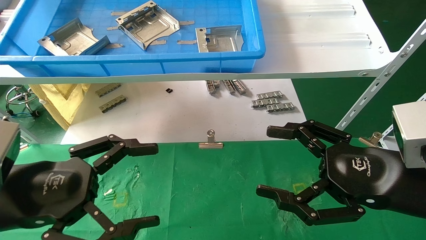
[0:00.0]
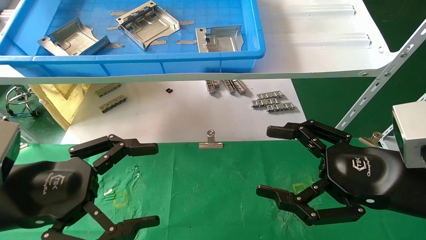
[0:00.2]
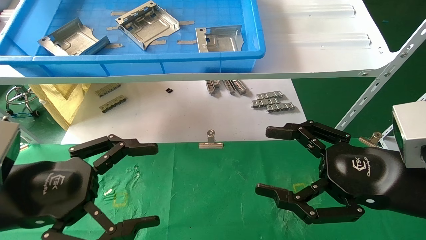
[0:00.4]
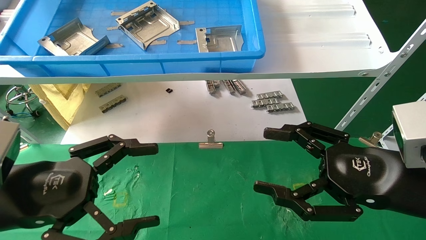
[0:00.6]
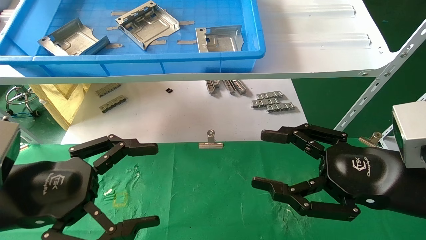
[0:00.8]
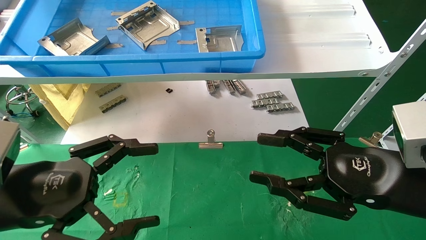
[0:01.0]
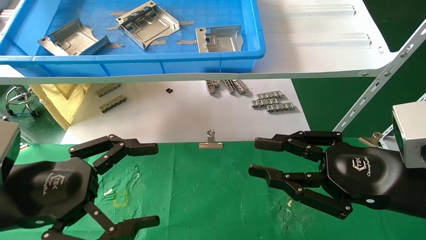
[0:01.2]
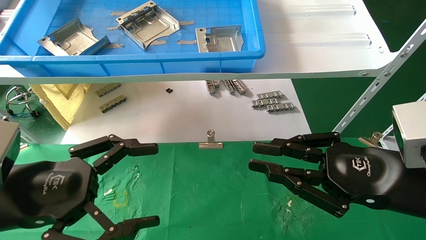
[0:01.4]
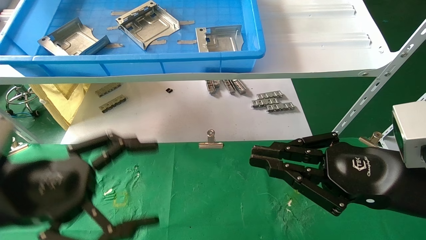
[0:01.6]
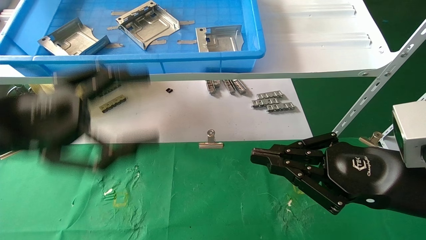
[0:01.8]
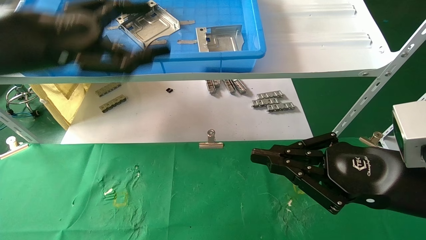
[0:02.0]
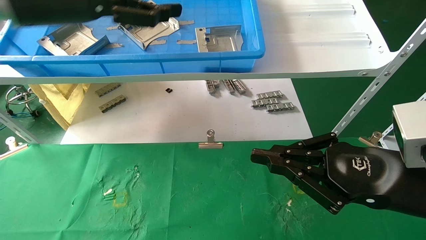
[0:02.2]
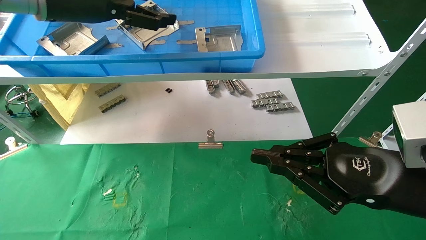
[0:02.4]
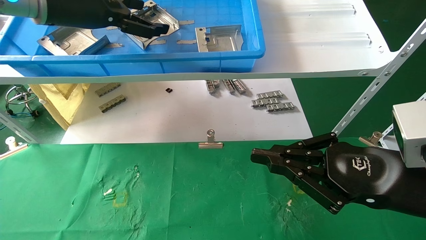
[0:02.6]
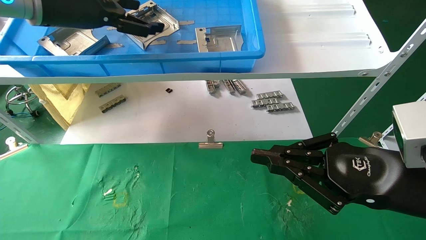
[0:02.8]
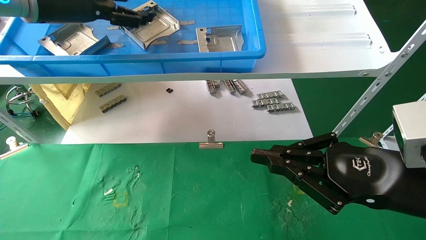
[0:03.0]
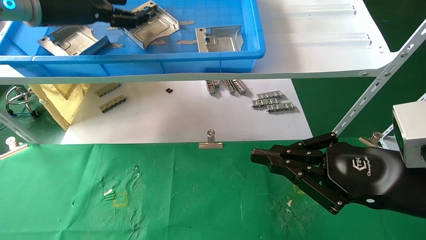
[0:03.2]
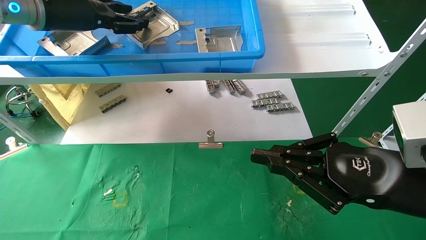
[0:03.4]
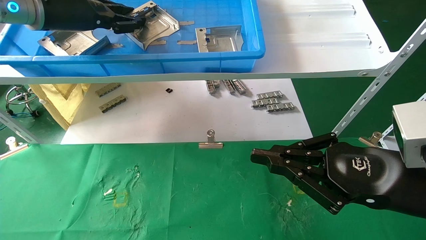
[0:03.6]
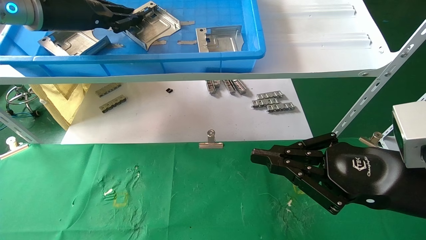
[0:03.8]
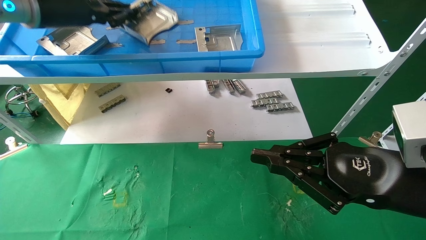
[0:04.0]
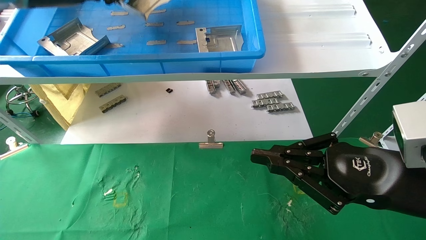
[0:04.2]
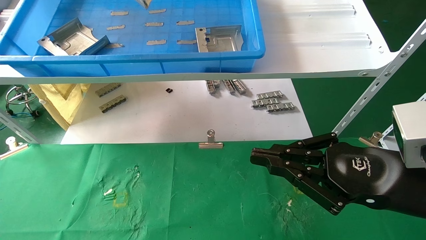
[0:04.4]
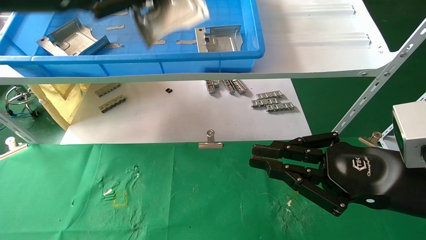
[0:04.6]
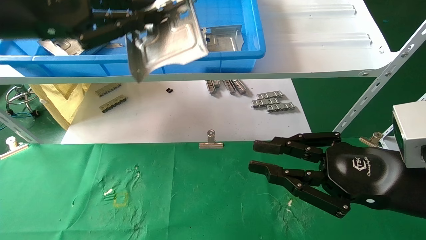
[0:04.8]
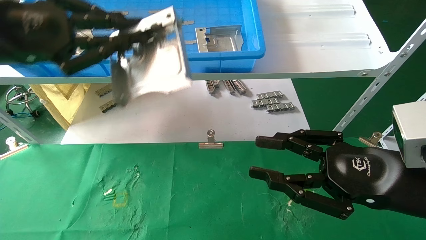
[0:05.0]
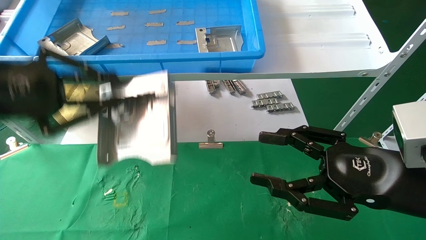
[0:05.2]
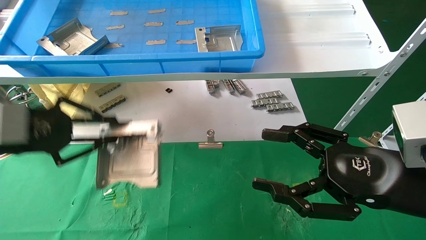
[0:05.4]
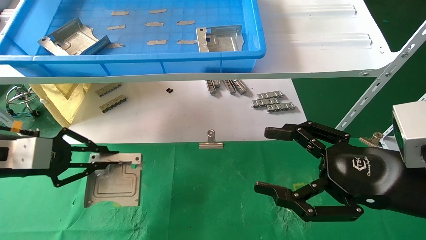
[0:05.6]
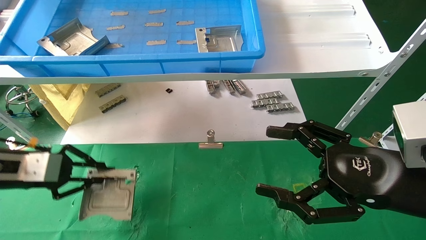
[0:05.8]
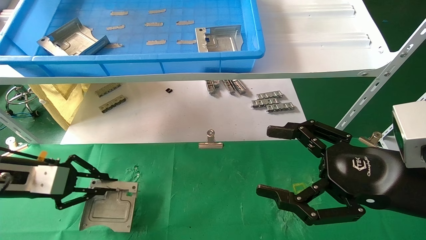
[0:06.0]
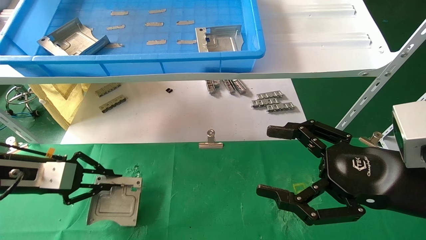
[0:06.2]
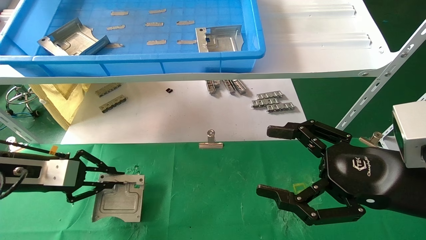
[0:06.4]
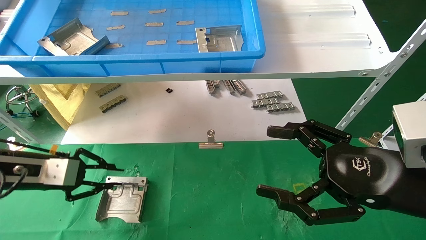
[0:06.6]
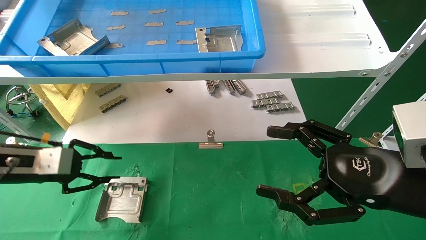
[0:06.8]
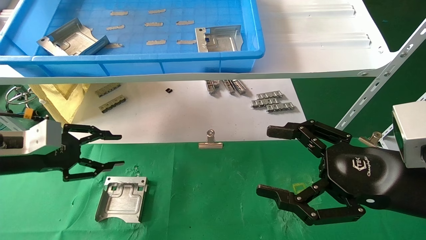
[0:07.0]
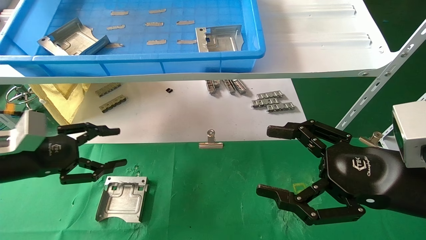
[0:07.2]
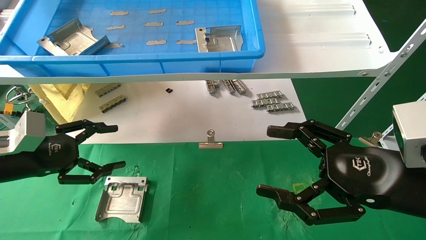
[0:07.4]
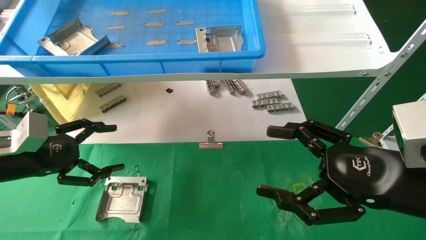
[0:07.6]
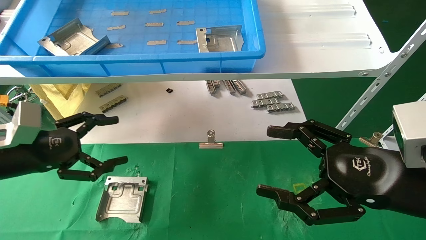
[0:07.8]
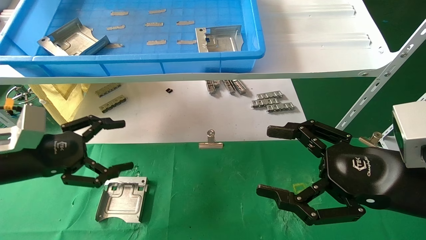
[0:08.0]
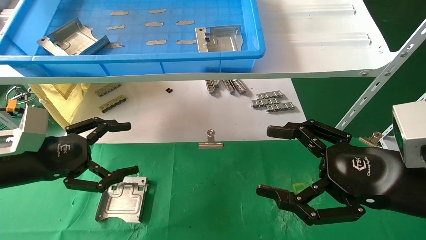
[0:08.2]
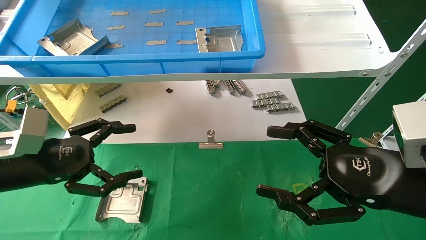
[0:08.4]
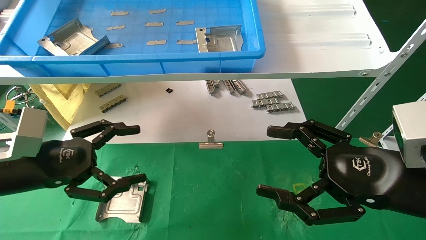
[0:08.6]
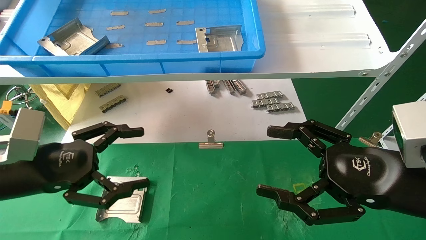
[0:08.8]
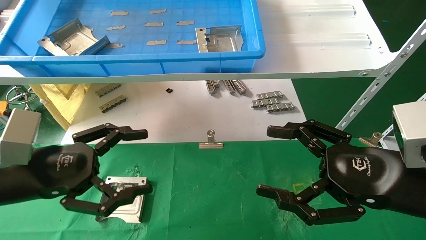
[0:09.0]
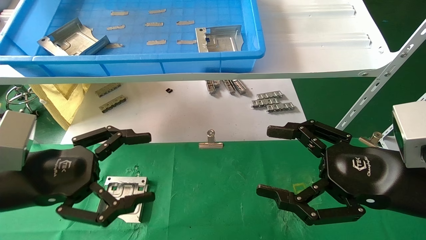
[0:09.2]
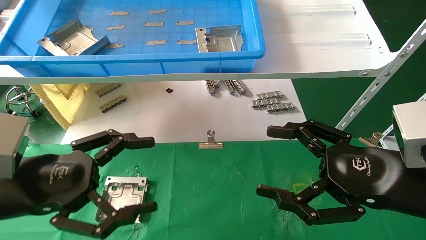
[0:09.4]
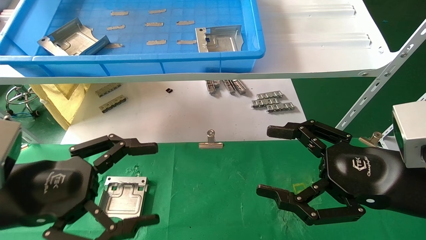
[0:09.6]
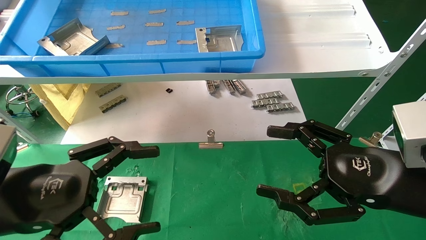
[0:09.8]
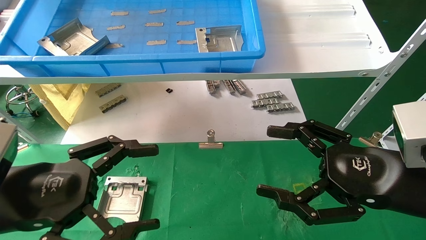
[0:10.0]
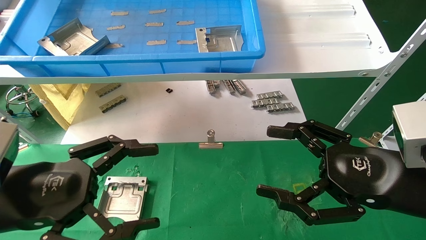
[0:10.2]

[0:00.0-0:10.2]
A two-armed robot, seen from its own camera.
Task of the whole recording: use the mechanical arm to pick up the parts and place them on the table.
Step, 0:02.0 to 0:03.8: Pick up the hard drive bracket from the feeding area.
Step, 0:04.0 to 0:07.0: Place the hard drive bracket into the box.
0:00.0 to 0:01.4: The right gripper closes up.
0:01.4 to 0:03.0: The left gripper moves upward and forward, about 30 cm.
0:03.0 to 0:04.4: The left gripper changes place by some 5 cm, and closes.
0:04.4 to 0:05.8: The right gripper opens up. Meanwhile the left gripper heads downward, covering approximately 25 cm.
0:05.8 to 0:07.2: The left gripper opens.
0:07.2 to 0:08.8: The left gripper is displaced to the right and backward by some 10 cm, and opens up.
0:08.8 to 0:10.2: The left gripper is displaced backward by roughly 5 cm.
